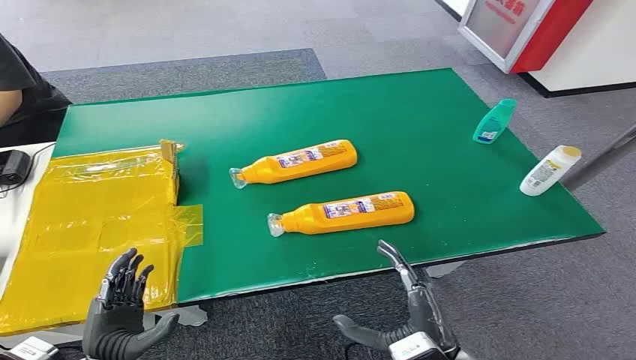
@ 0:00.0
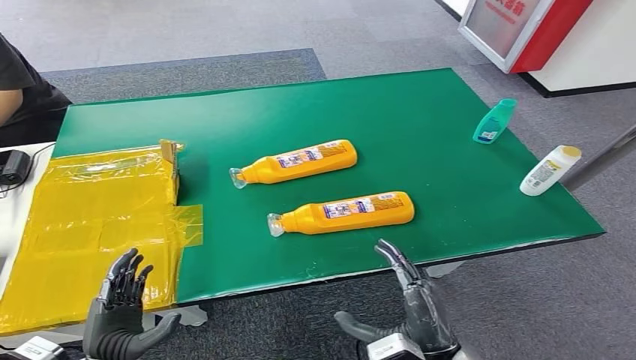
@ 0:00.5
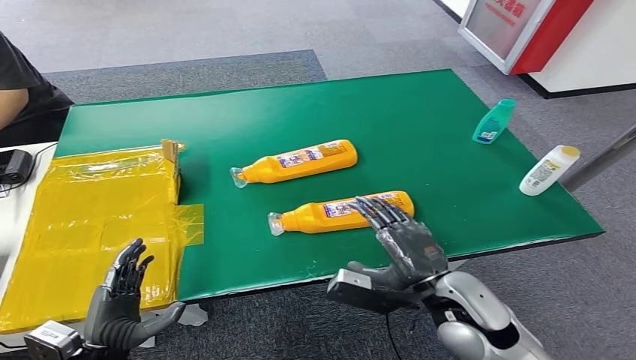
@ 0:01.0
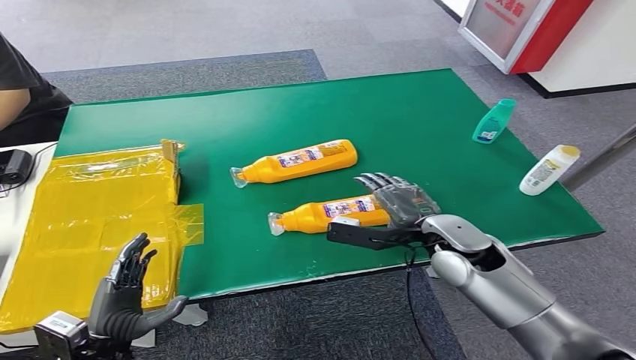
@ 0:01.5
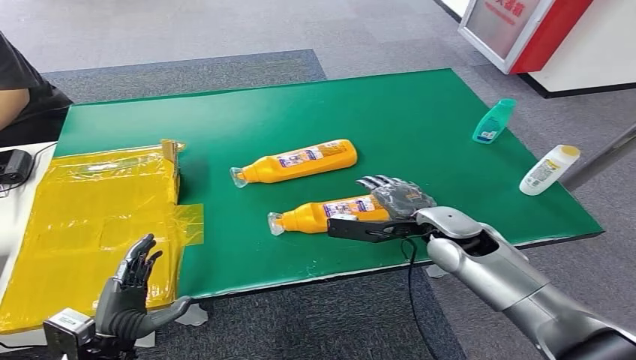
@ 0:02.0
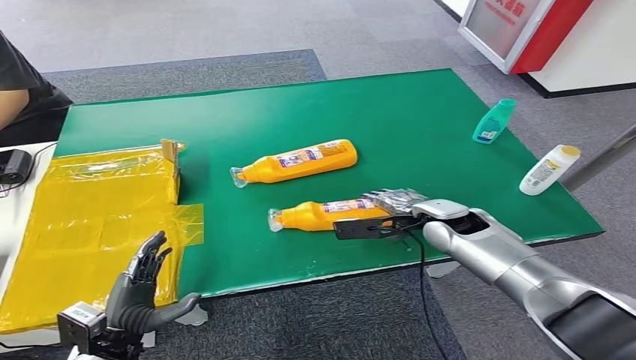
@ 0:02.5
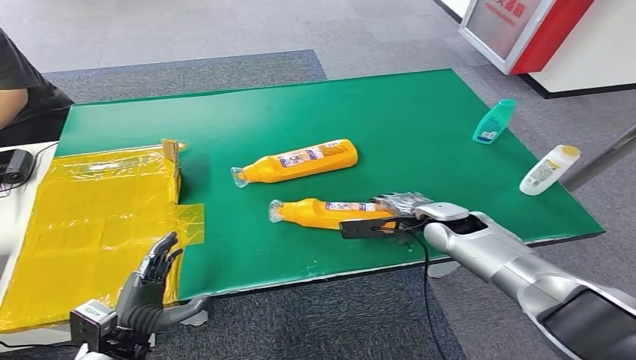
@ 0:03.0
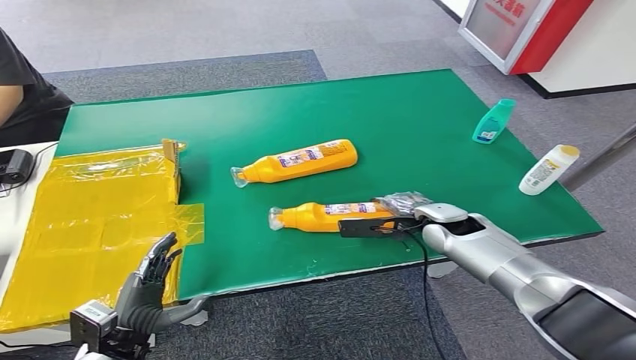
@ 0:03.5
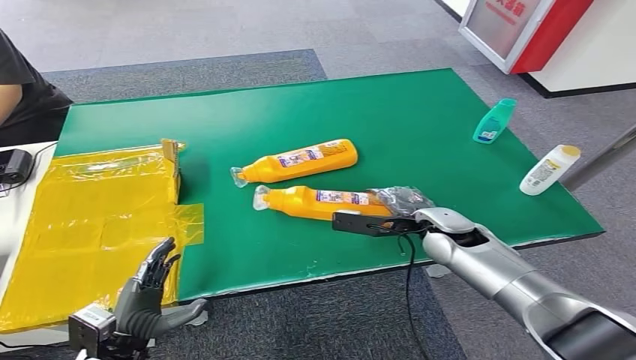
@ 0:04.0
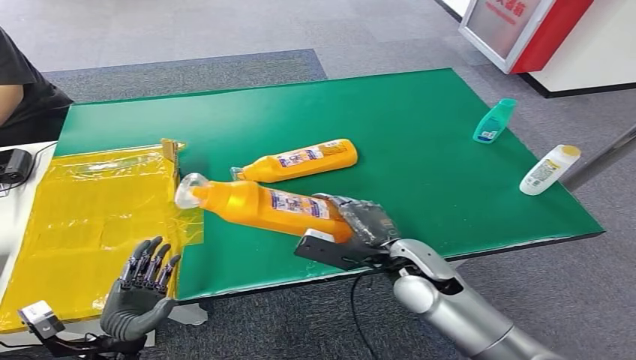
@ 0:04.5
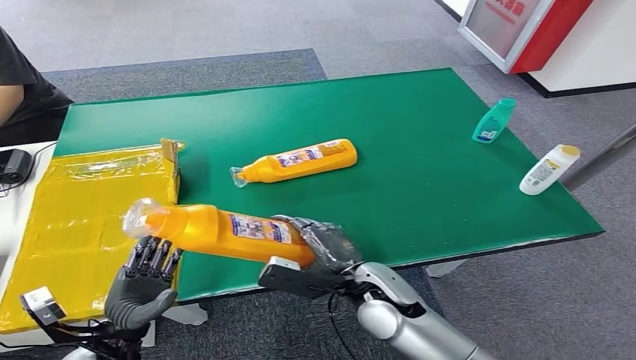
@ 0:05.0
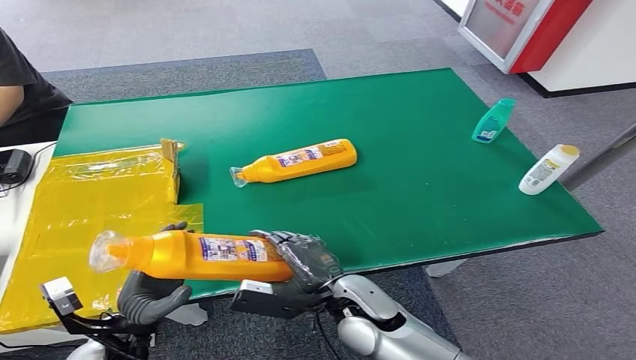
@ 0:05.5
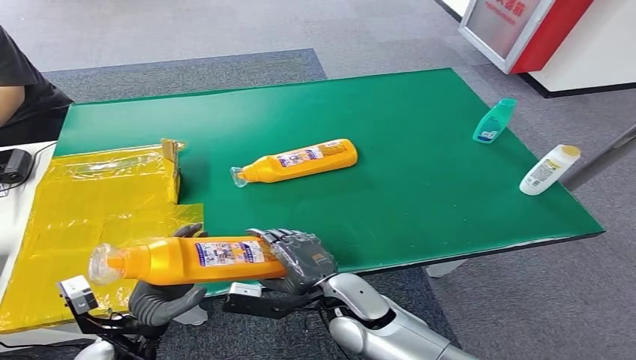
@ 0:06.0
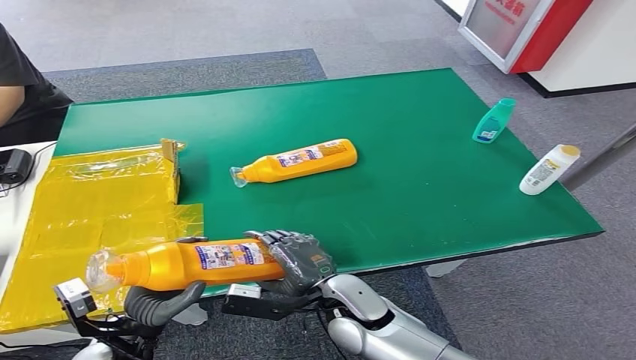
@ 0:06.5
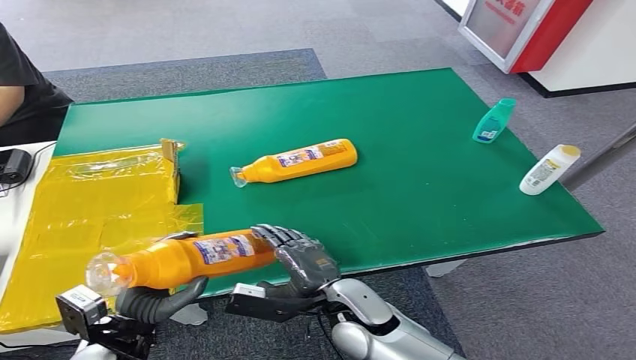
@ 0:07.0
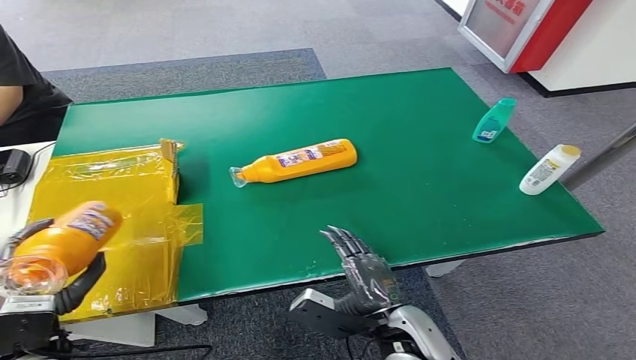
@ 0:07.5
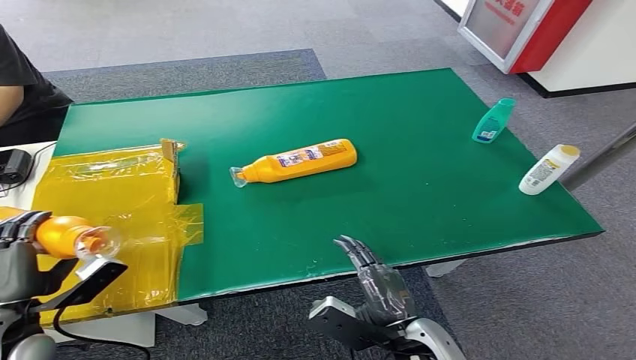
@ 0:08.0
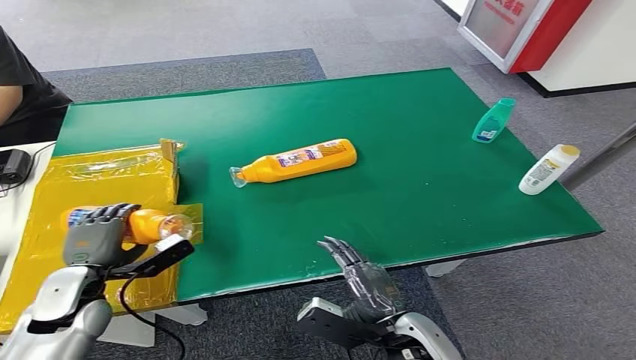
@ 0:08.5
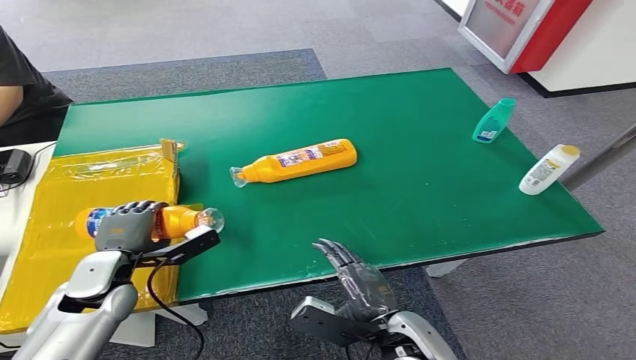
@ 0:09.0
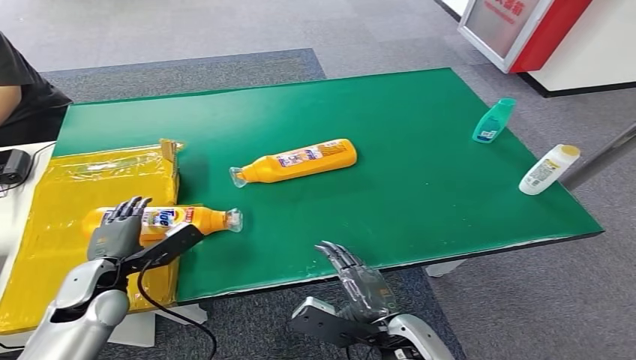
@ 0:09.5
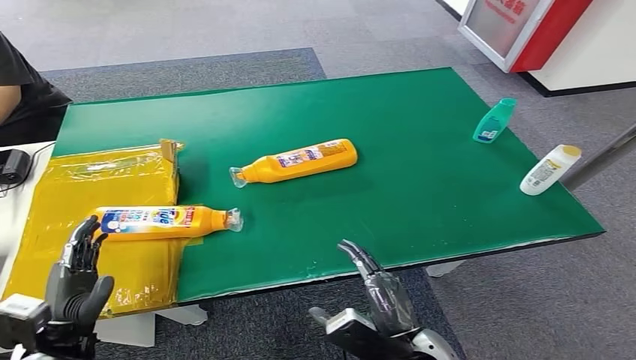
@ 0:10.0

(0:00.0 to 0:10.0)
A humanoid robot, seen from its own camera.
Step, 0:00.0 - 0:04.5: Pick up the bottle from the table.
Step, 0:05.0 - 0:10.0: Turn the bottle to the front side.
0:04.0 - 0:06.0: The right hand shifts approximately 20 cm to the left and backward.
0:06.0 - 0:08.0: The left hand moves to the left and upward, approximately 15 cm; the right hand shifts approximately 10 cm backward and to the right.
0:08.0 - 0:10.0: The left hand travels to the right by some 5 cm, and moves about 10 cm forward and comes back.
